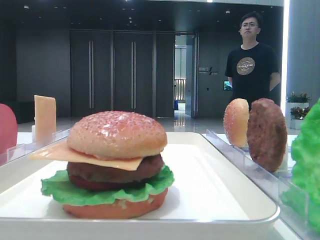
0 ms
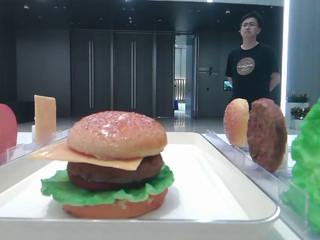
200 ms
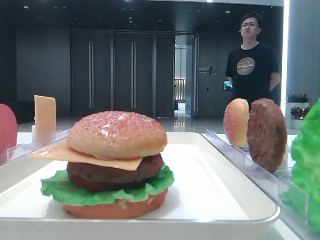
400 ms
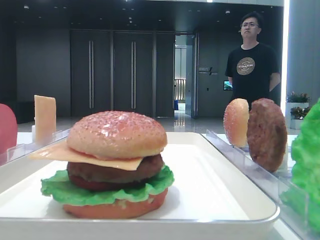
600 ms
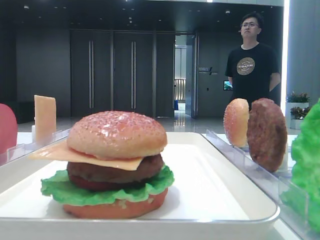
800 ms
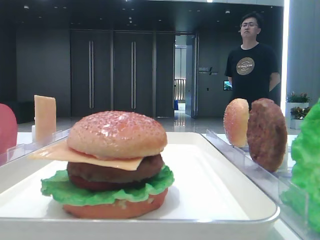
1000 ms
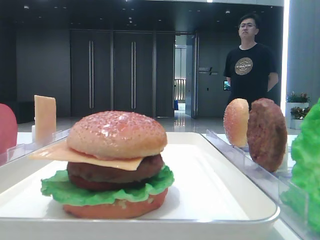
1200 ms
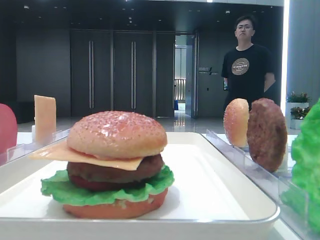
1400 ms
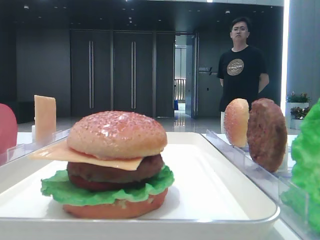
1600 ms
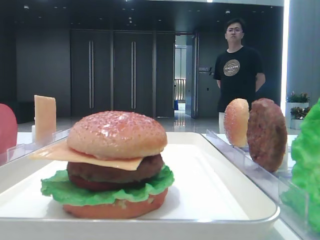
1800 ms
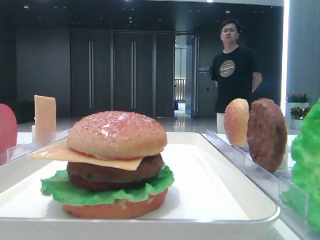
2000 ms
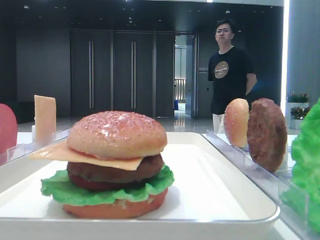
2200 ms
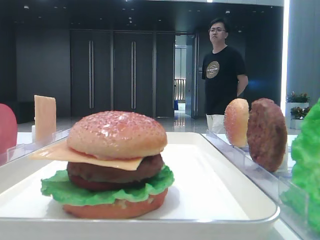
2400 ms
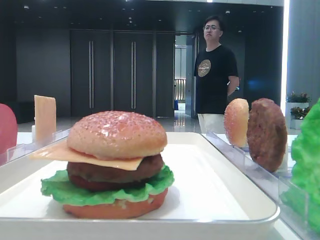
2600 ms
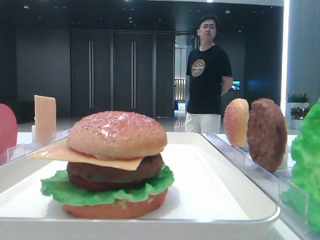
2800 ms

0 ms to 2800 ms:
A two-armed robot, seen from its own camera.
0 ms to 2800 ms: Both grippers stay about where they are.

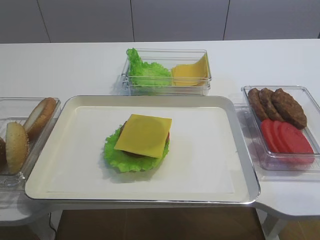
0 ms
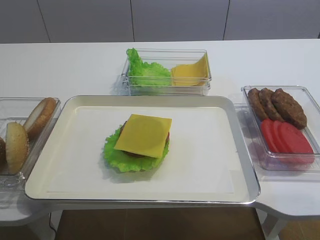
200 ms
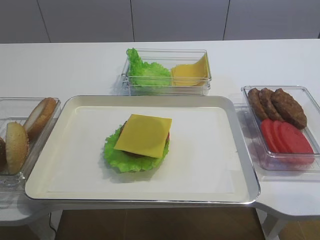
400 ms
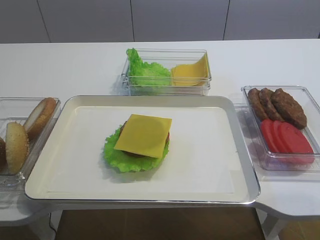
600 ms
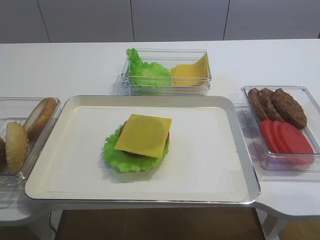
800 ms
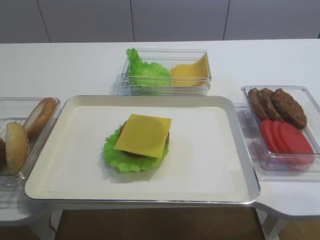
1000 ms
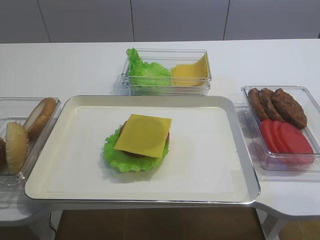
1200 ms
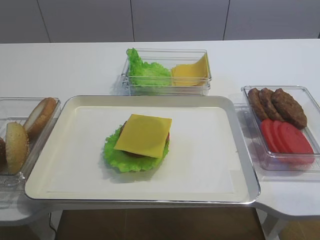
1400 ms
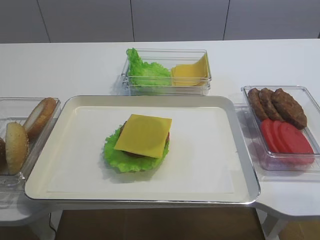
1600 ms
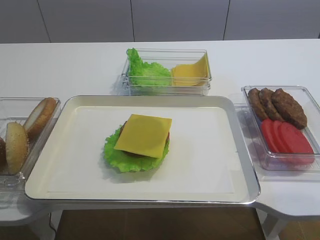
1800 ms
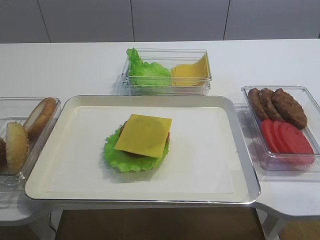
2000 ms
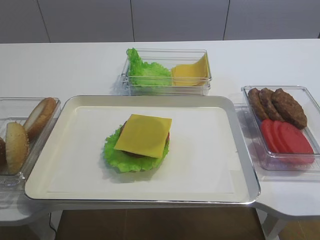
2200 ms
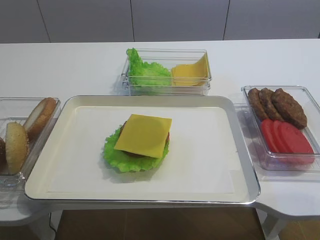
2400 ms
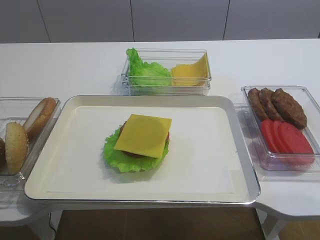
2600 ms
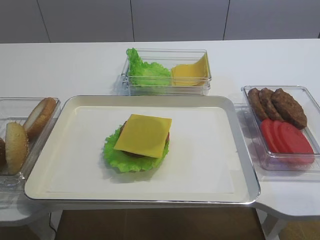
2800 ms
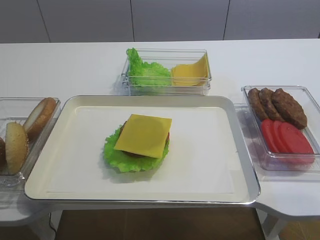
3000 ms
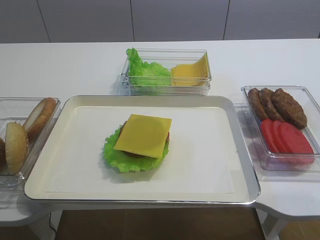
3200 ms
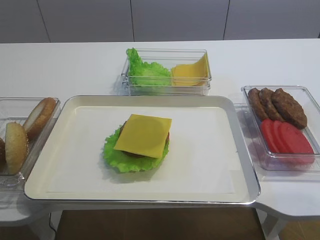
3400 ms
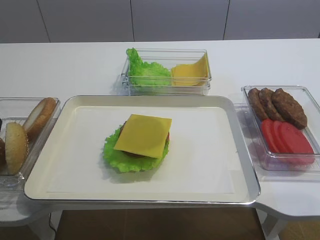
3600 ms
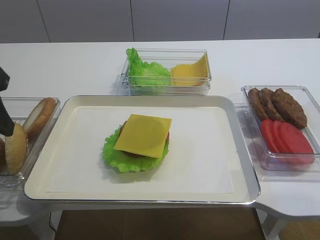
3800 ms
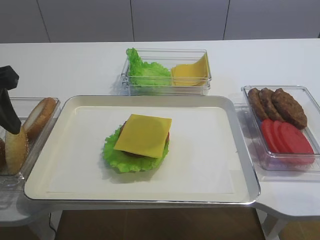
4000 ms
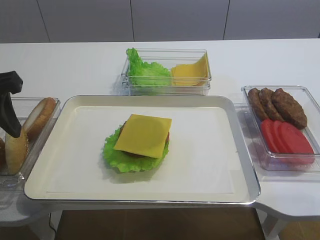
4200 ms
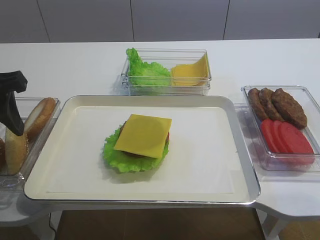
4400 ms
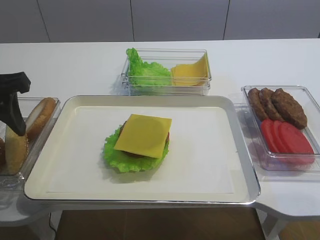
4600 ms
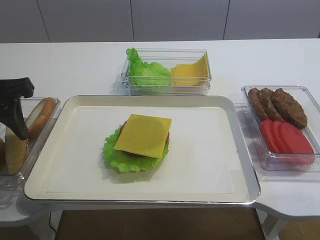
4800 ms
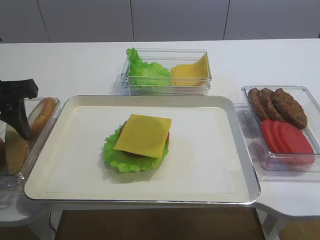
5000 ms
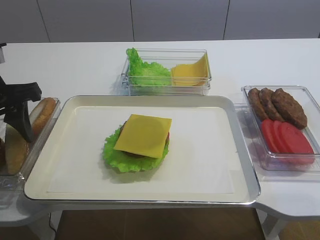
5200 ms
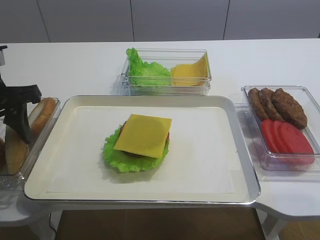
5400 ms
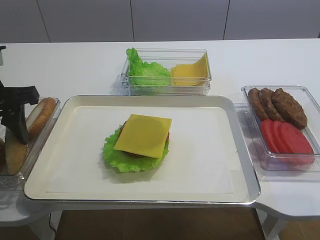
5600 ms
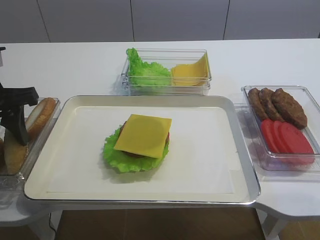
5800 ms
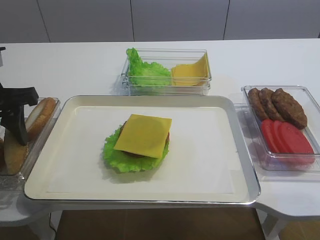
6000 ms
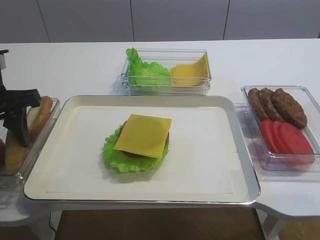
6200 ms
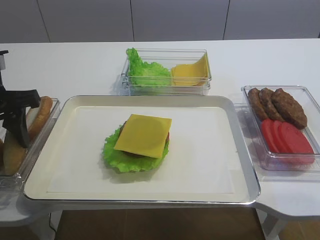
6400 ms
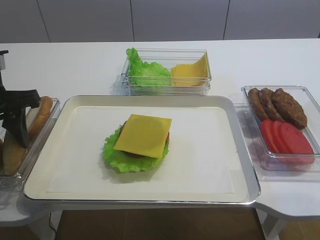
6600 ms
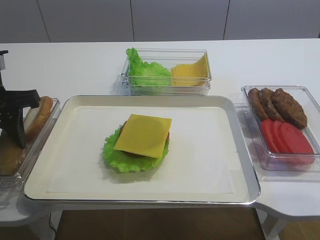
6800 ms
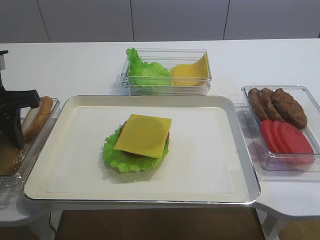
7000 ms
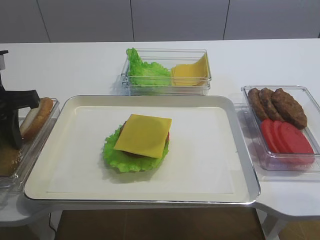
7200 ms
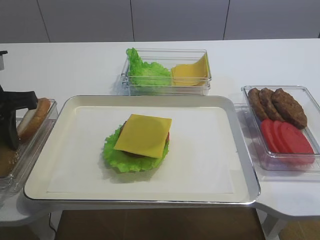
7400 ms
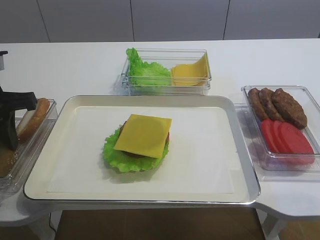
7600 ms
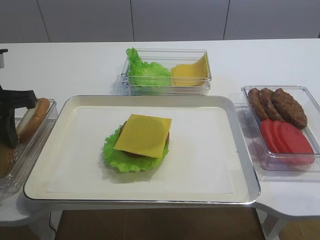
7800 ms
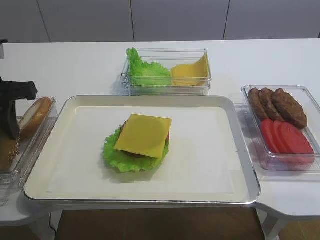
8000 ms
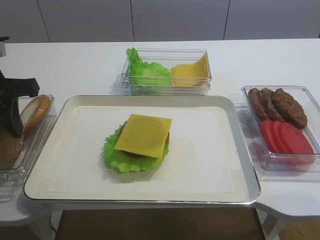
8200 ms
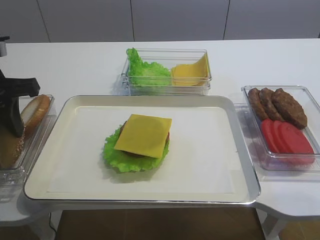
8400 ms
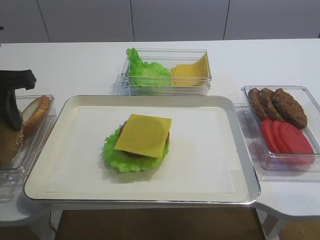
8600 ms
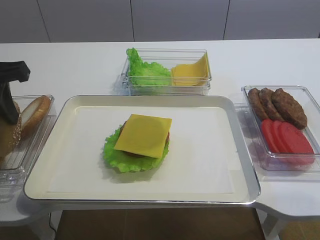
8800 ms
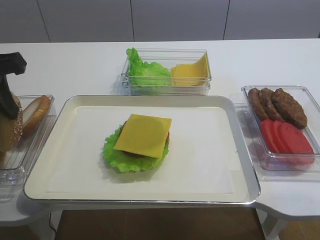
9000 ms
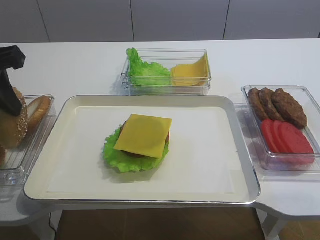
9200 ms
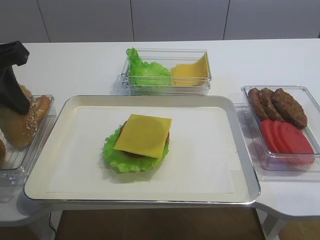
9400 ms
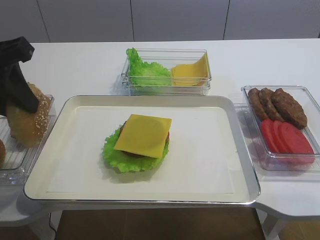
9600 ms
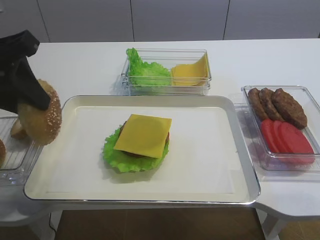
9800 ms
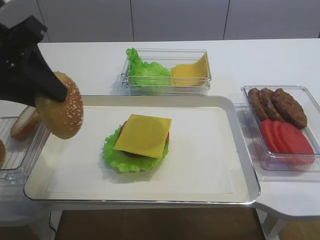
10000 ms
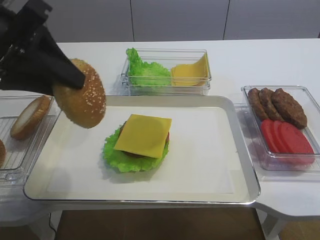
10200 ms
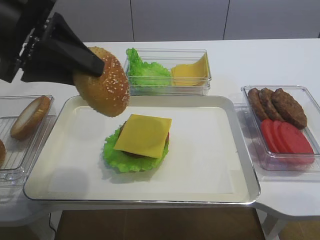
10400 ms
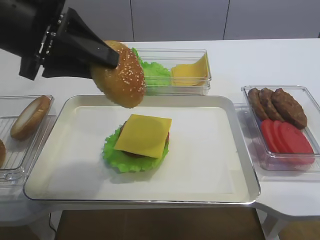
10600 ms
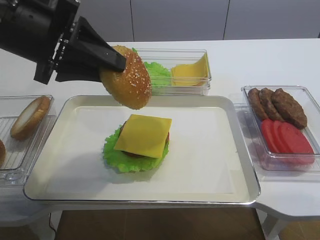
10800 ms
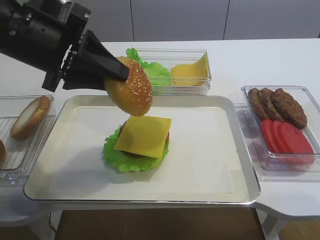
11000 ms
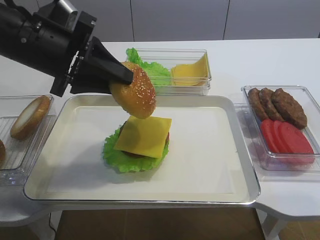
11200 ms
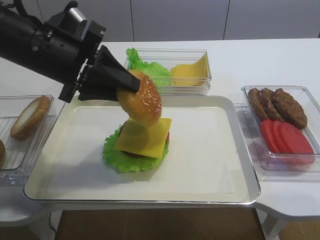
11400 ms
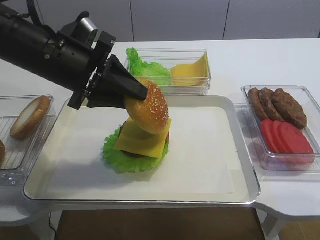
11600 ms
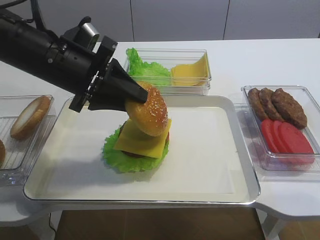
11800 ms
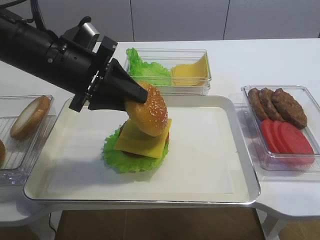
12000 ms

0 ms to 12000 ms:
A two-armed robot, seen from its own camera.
Step, 0 ms to 8800 ms: Pick up the hamburger lid with the left gripper.
3000 ms to 4400 ms: The left gripper goes about 10 cm forward and downward.
4400 ms to 6000 ms: The grippers make only small movements.
6000 ms to 7600 ms: The left gripper closes its fingers.
7600 ms to 9000 ms: The left gripper goes about 5 cm upward.
9000 ms to 10400 ms: The left gripper moves to the right, roughly 5 cm.
10400 ms to 12000 ms: The left gripper travels downward and forward by approximately 10 cm.

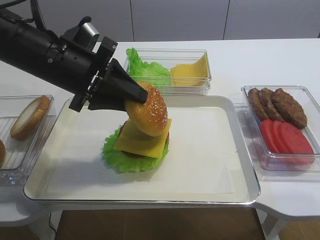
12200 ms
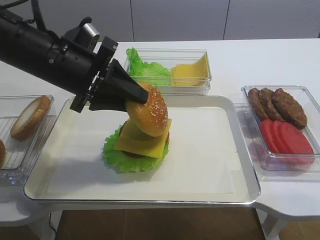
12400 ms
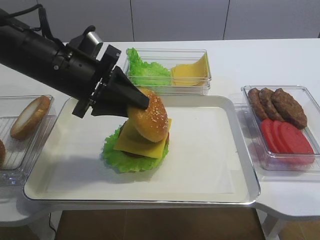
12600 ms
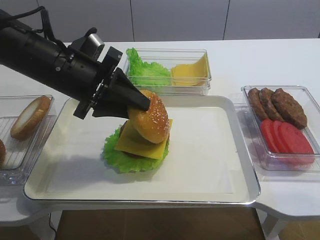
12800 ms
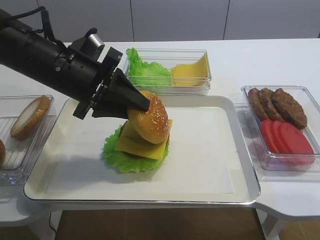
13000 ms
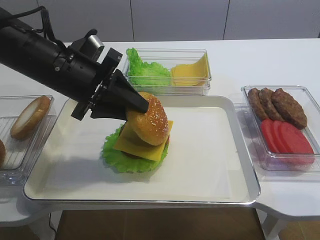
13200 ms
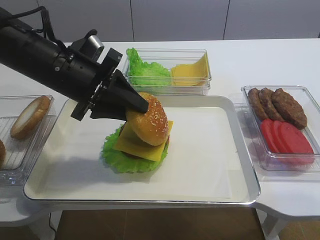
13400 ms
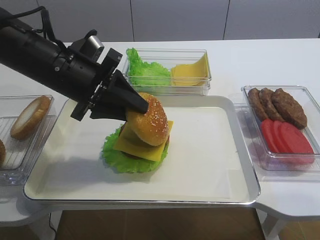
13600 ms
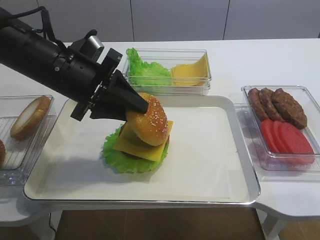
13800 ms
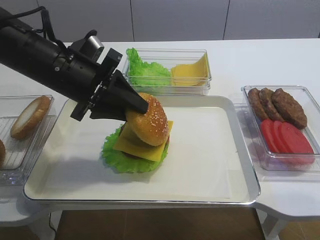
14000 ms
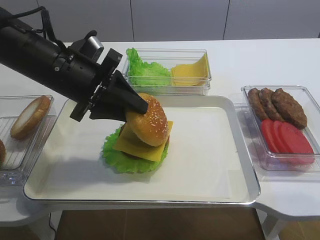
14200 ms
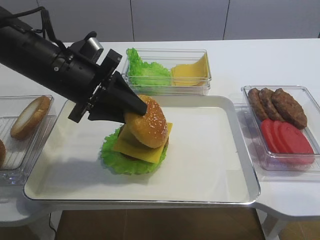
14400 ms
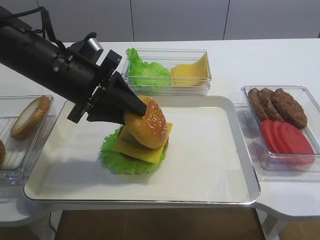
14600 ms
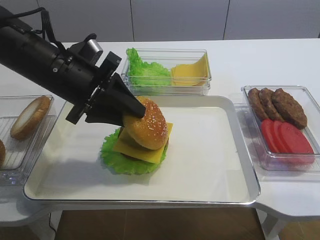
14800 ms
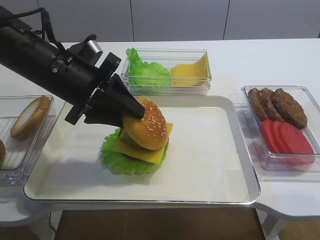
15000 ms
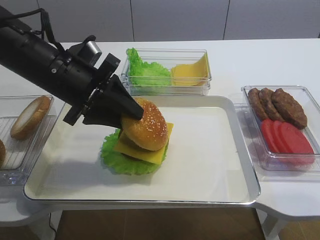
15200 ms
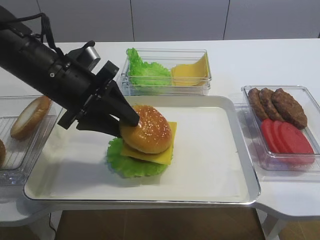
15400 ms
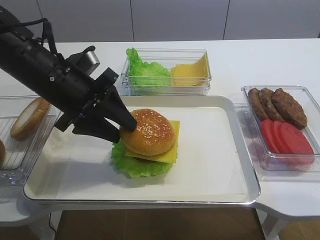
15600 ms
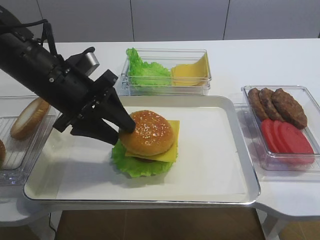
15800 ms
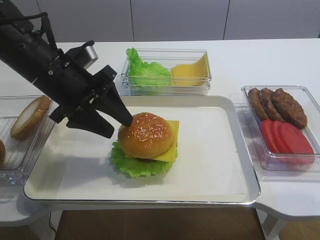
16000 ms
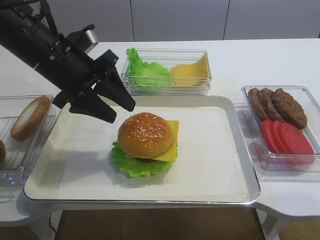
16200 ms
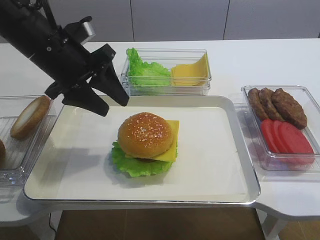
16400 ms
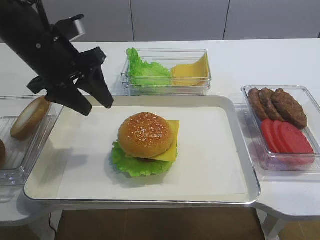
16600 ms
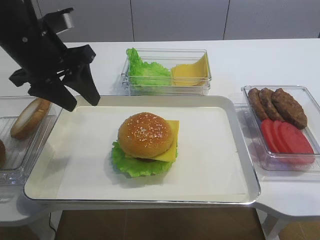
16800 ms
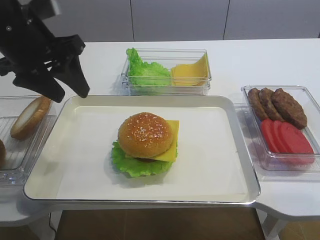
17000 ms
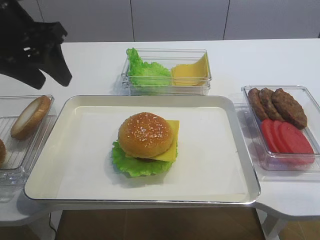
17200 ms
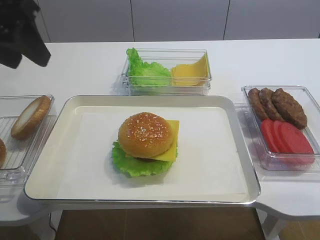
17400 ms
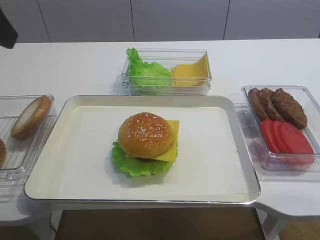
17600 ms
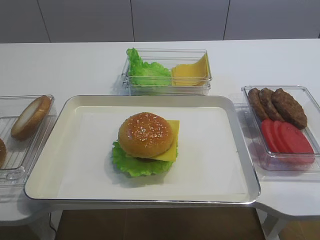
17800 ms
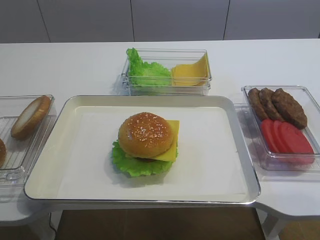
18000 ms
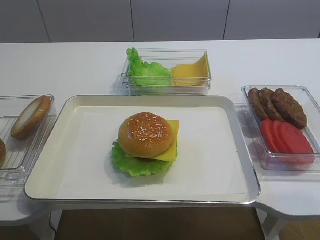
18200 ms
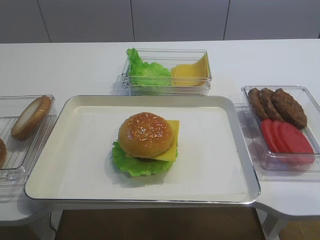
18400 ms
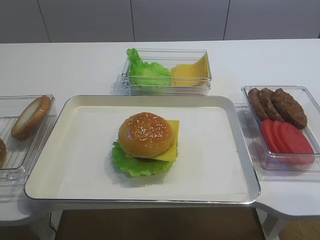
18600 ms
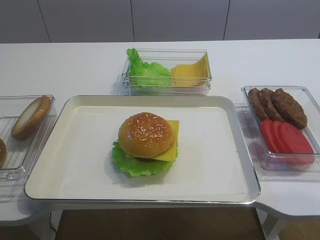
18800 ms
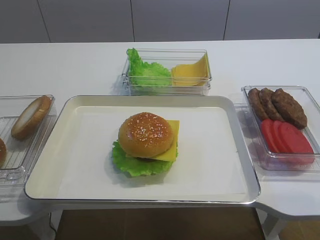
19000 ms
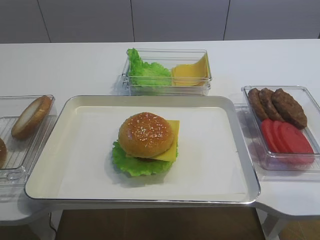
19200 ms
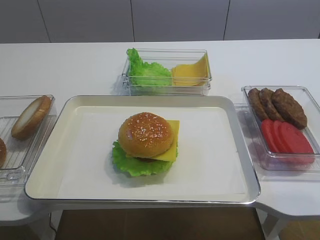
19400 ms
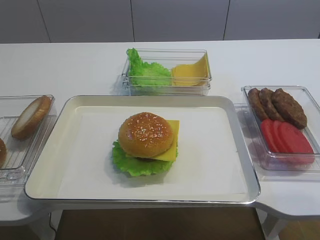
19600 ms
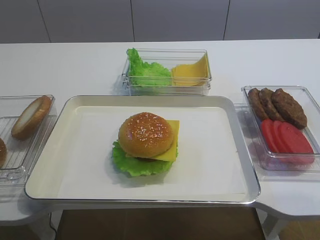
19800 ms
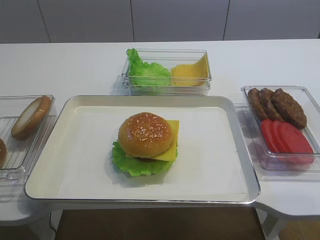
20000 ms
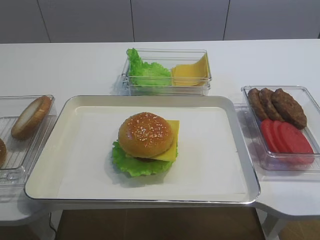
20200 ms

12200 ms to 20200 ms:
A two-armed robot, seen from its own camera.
Step, 12200 ms to 16400 ms: Place the hamburger lid on the cheese slice with the left gripper.
12200 ms to 13800 ms: The grippers stay close to where they were, moving slightly.
13800 ms to 15400 ms: The left gripper opens.
15400 ms to 17000 ms: The left gripper goes some 10 cm upward, and opens.
17000 ms to 18600 ms: The left gripper heads backward, covering some 25 cm.
